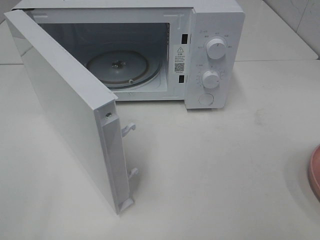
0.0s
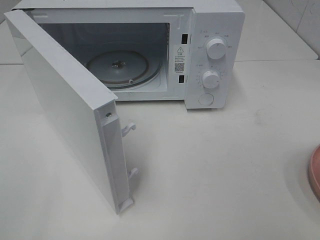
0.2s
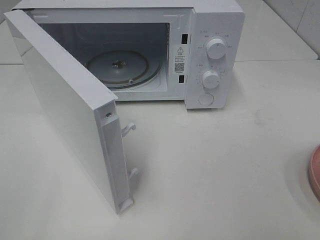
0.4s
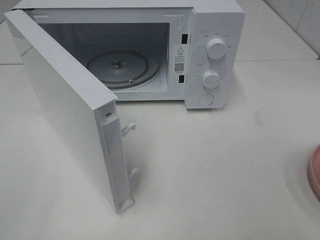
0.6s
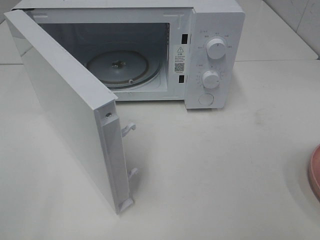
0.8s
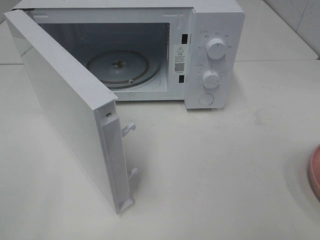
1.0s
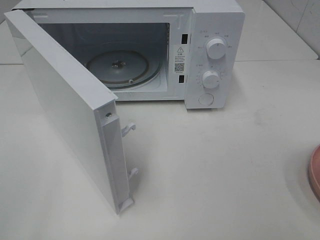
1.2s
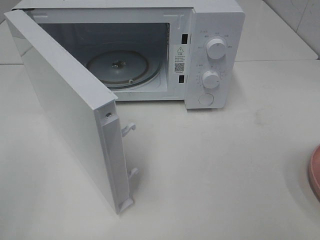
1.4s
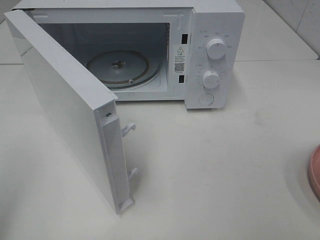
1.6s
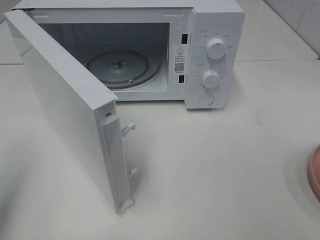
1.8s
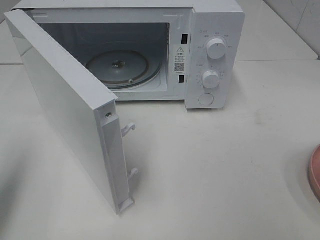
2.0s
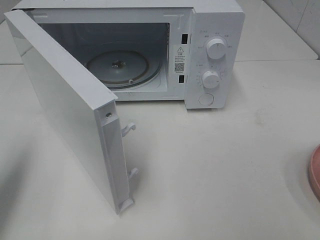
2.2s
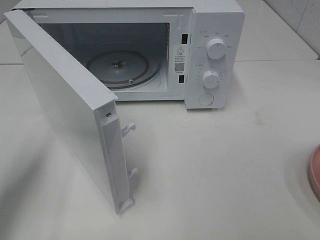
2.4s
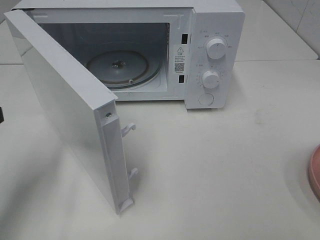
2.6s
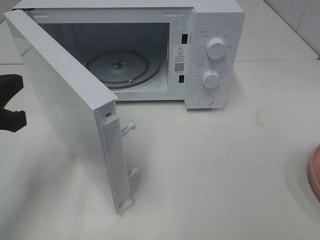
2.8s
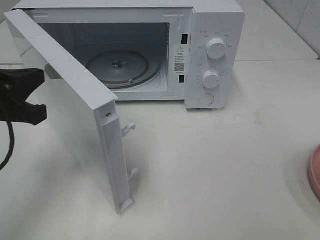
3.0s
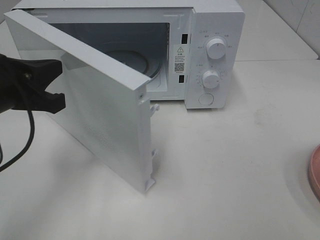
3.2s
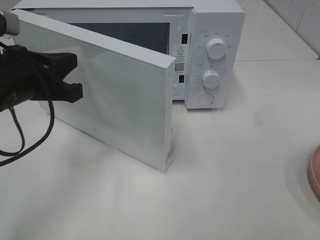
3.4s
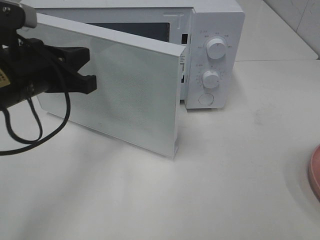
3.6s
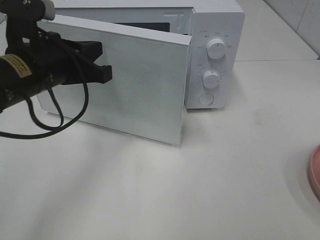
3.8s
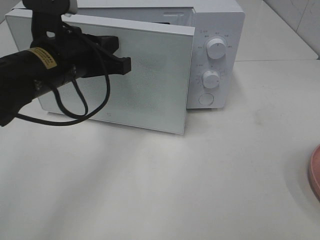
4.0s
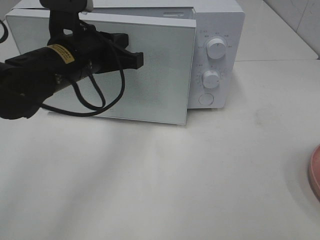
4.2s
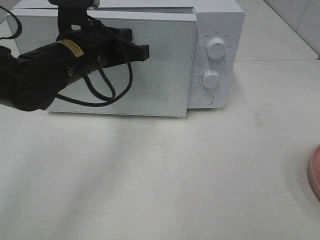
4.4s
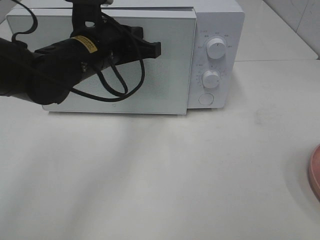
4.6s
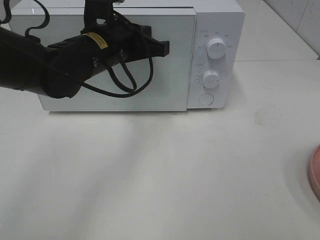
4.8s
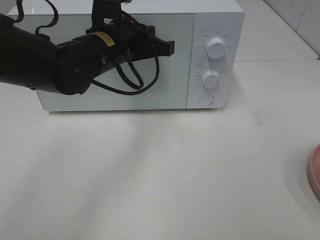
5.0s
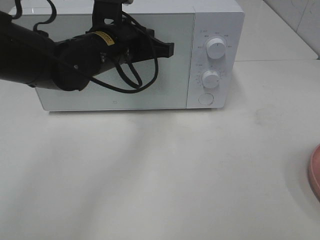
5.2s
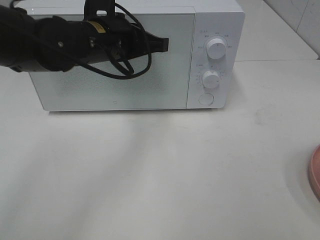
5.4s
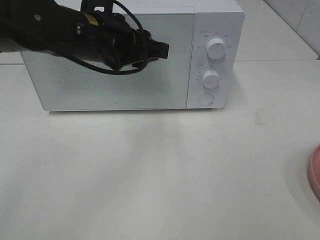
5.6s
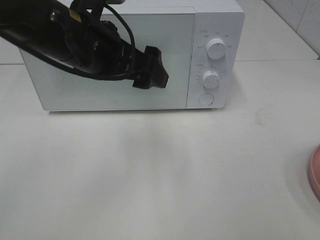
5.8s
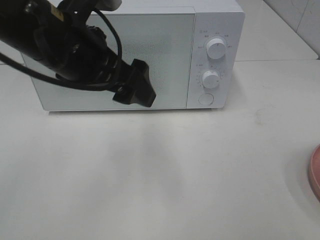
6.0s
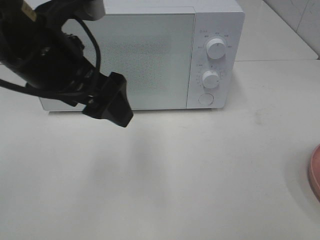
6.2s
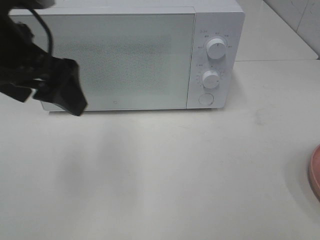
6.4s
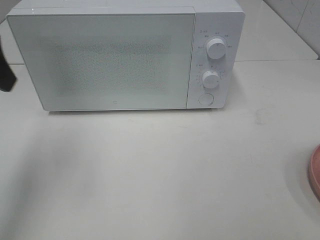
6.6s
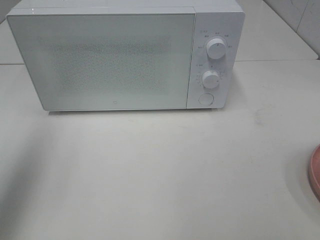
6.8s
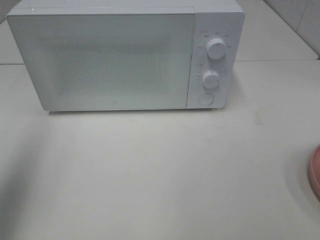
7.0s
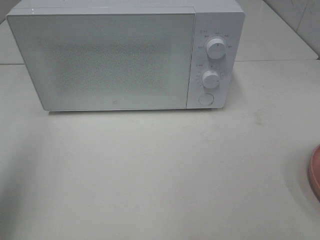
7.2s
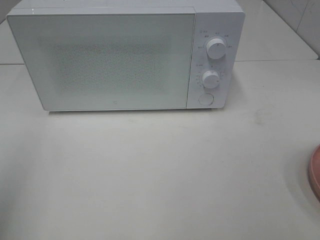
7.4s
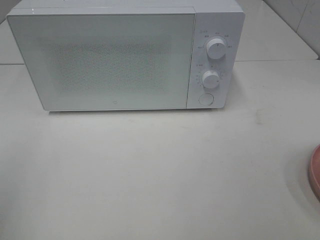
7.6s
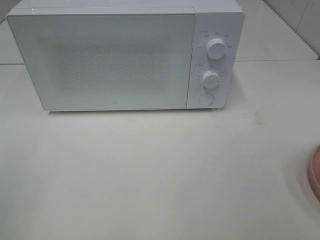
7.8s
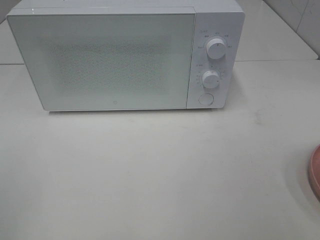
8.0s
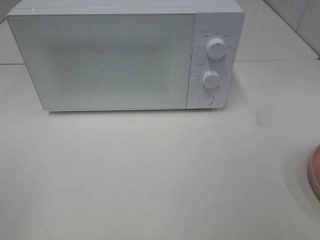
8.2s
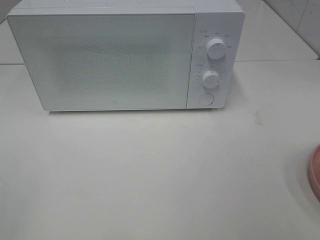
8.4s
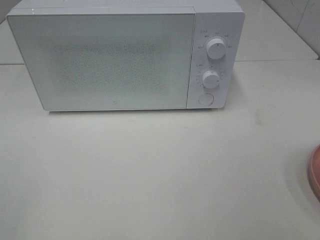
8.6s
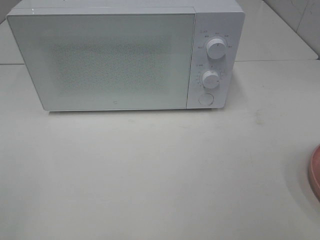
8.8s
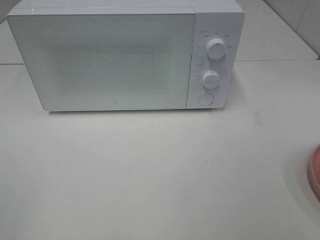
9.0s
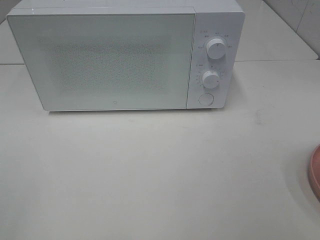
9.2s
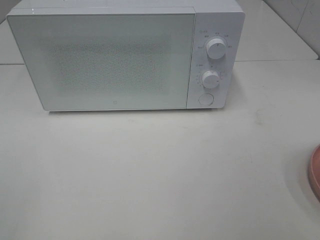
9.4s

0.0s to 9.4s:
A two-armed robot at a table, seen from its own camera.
Task of the whole recording: Heat the burger.
Step, 0.0s to 5.4s: Left hand: close the microwave door.
1.6s to 3.2s: The left gripper is displaced forward, to the right and downward by approximately 20 cm.
3.2s to 4.8s: The left gripper travels to the right and forward by roughly 15 cm.
4.8s to 6.2s: The left gripper shifts roughly 15 cm backward, upward and to the left, and opens.
6.2s to 7.8s: The left gripper moves to the left and backward, approximately 25 cm.

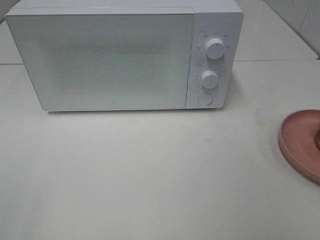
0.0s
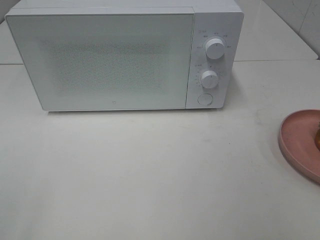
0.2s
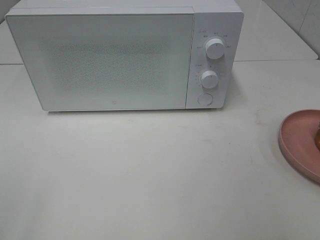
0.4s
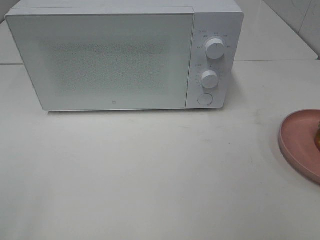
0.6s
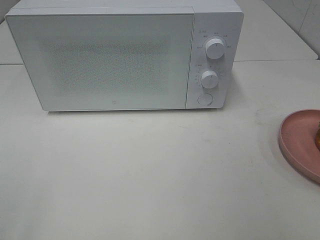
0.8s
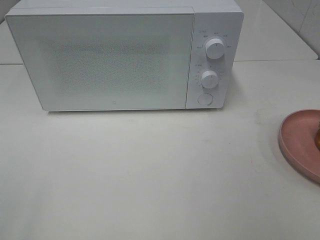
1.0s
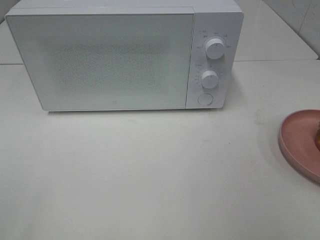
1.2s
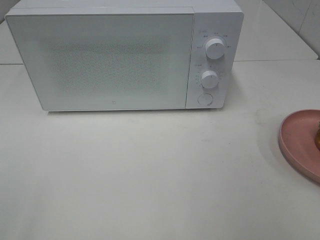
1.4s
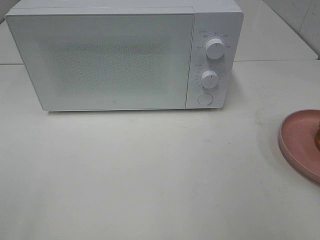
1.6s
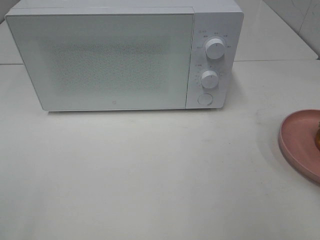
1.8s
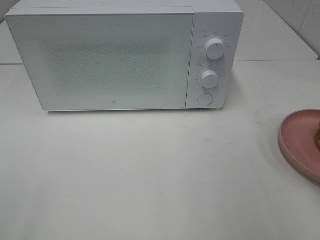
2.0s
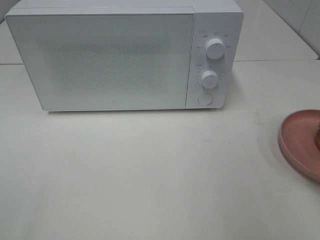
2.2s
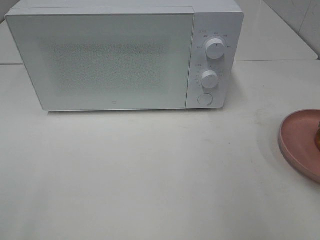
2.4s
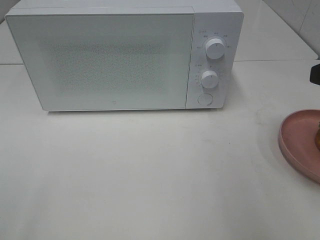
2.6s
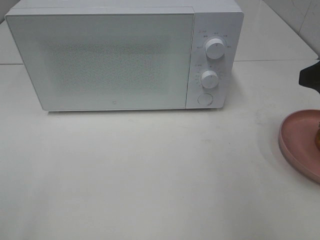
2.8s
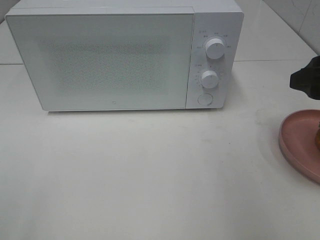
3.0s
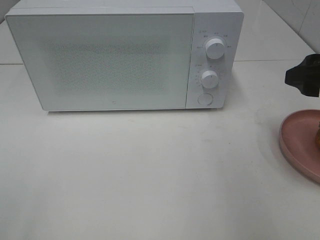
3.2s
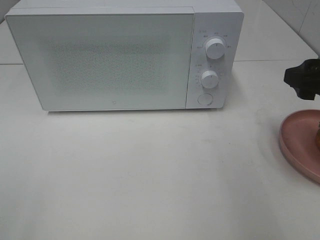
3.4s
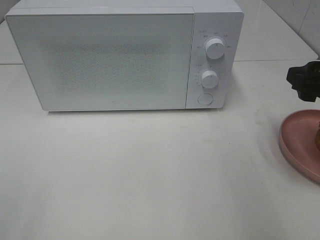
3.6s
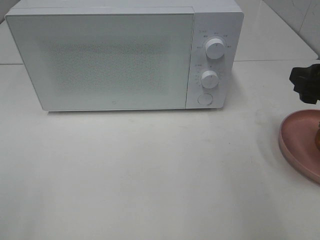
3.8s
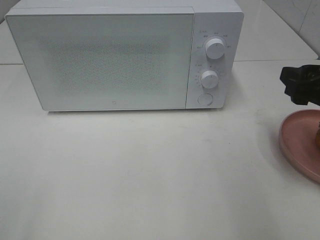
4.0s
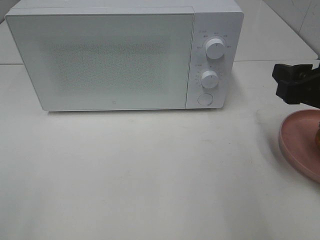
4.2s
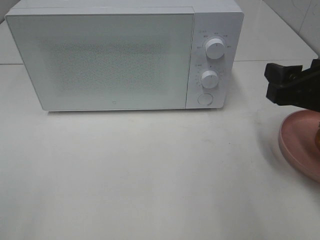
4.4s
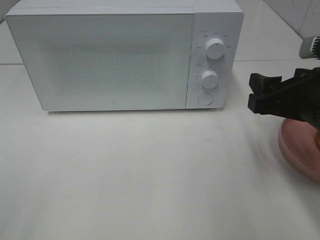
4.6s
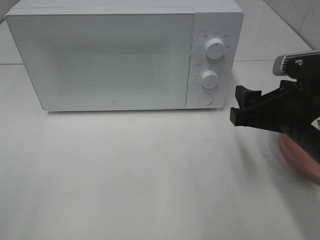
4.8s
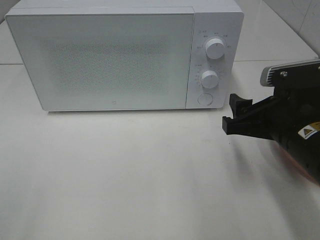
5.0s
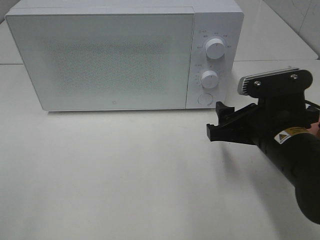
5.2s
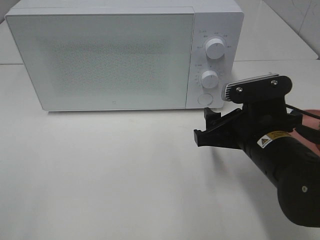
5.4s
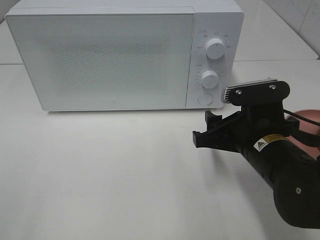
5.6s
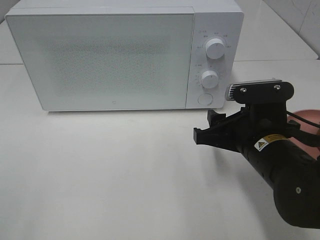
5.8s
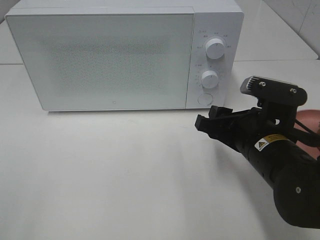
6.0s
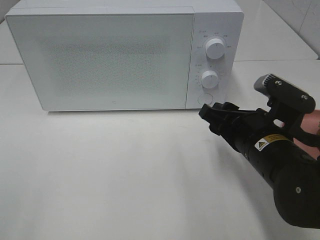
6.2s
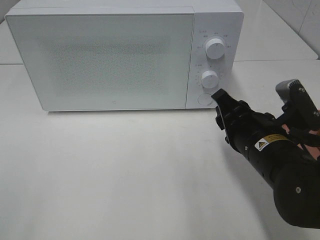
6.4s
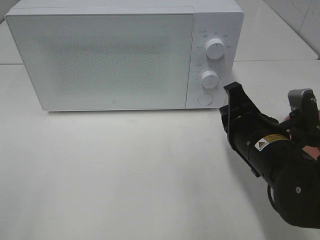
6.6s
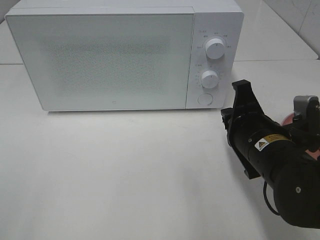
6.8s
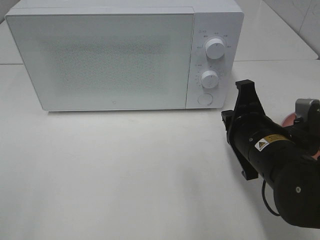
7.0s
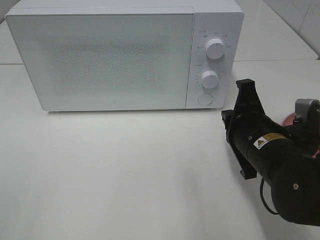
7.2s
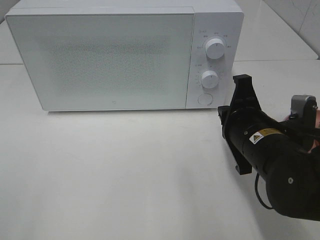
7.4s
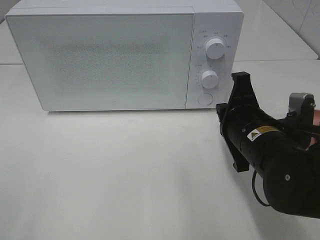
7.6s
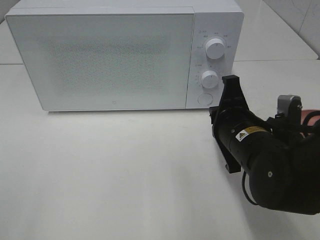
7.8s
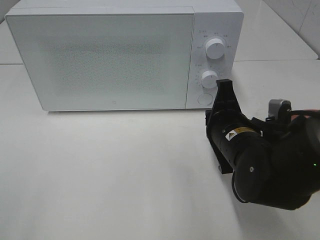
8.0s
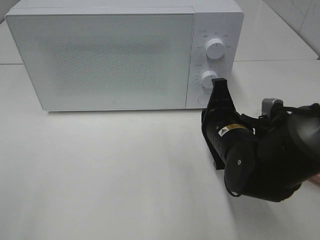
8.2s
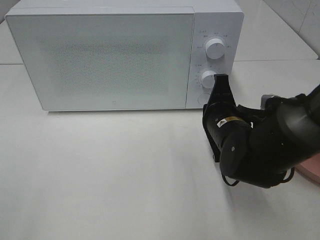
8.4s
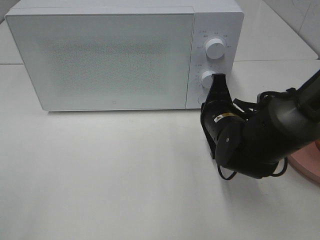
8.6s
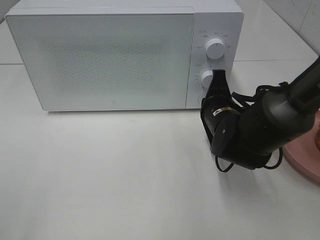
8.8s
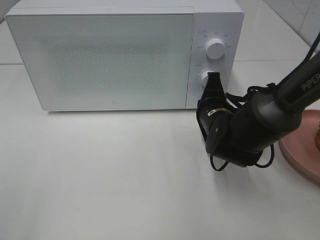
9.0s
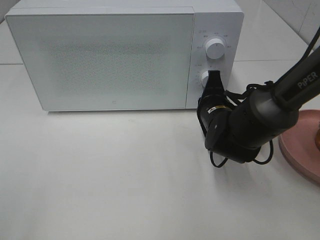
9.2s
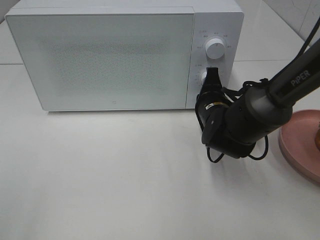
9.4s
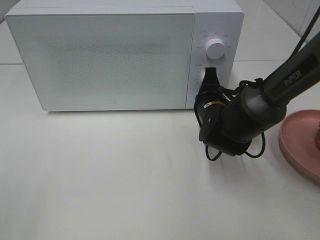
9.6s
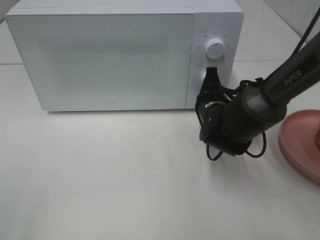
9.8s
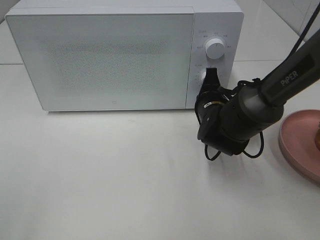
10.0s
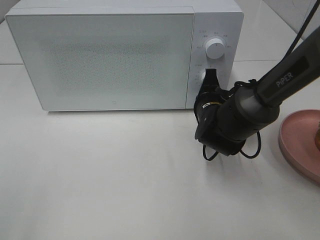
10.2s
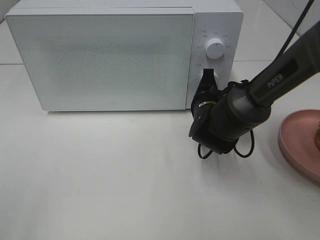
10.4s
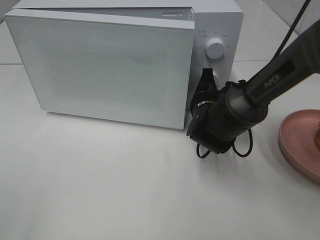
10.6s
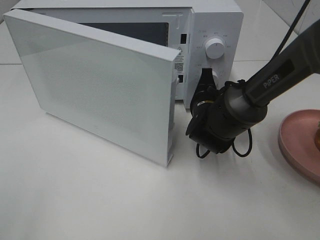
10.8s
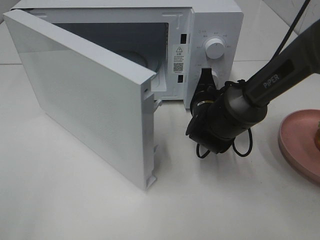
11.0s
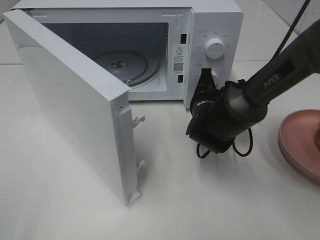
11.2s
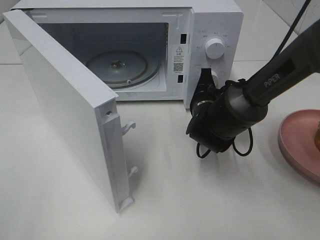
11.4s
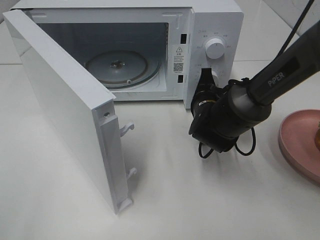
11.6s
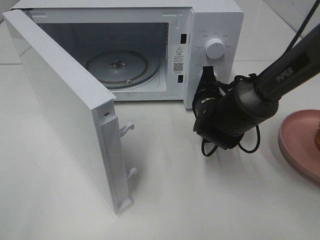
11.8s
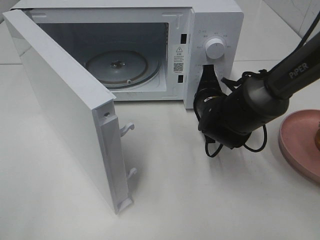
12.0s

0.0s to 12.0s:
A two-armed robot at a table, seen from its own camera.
Task of the whole recording: Heat the burger.
Step, 0.0s to 12.0s: Right hand: press the switch.
1.6s to 3.0s: The right gripper goes some 15 cm forward.
4.4s to 6.0s: The right gripper moves downward and to the left, approximately 10 cm.
6.0s to 7.6s: The right gripper closes its fingers.
7.6s to 9.0s: The right gripper travels forward and downward by some 10 cm.
9.0s to 10.4s: The grippers move only a little.

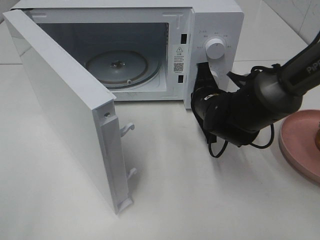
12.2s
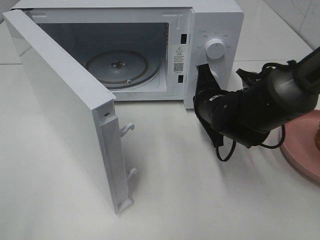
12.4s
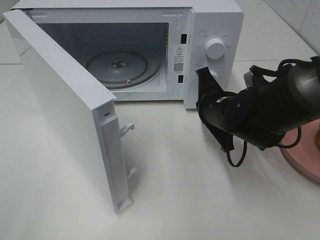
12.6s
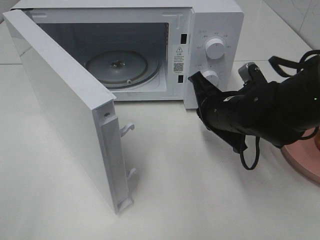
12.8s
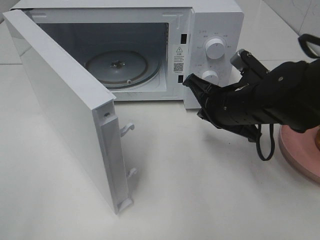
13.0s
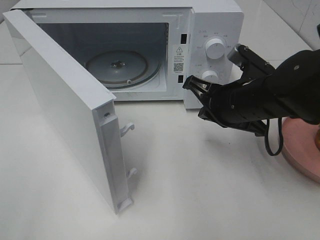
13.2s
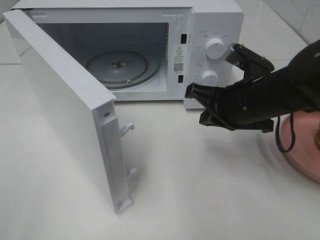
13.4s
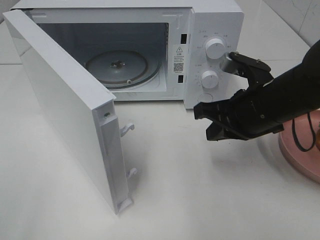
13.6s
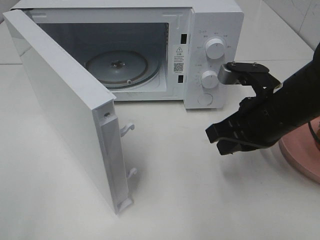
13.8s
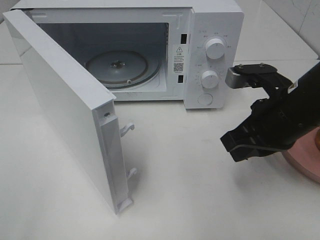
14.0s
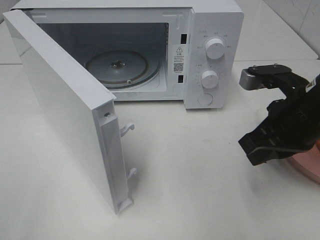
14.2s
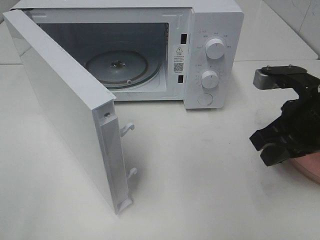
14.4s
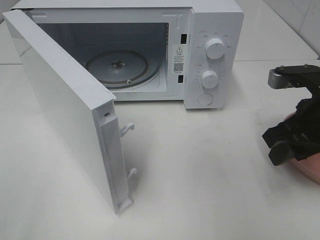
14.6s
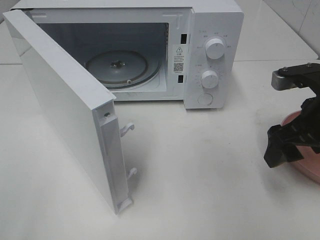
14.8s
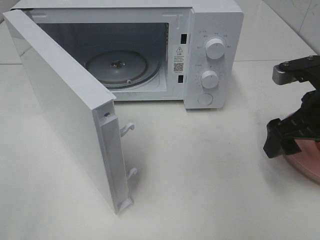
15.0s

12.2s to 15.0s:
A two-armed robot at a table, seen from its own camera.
Task of the whole recording: Heat the burger.
12.2s to 13.6s: The right gripper moves backward and upward, approximately 10 cm.
13.6s to 15.0s: The right gripper is displaced to the right by about 10 cm, and opens up.
